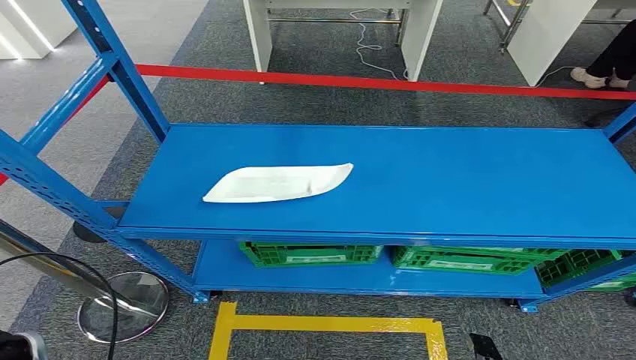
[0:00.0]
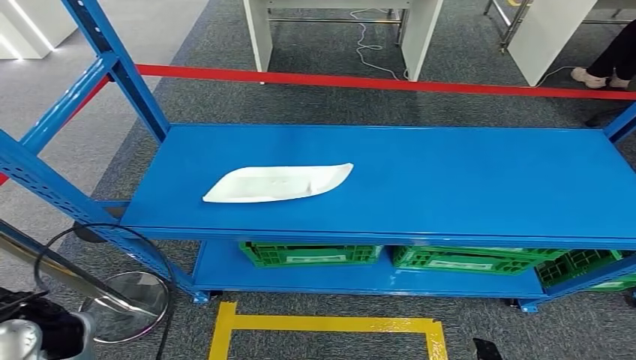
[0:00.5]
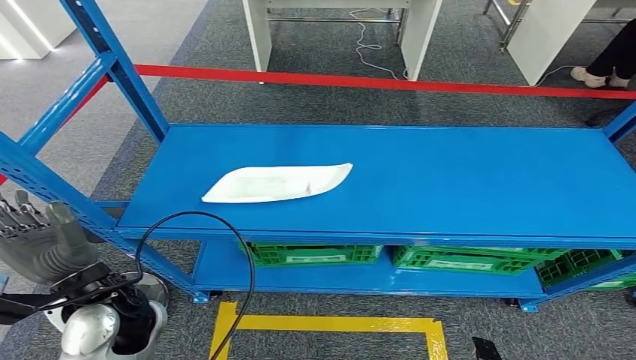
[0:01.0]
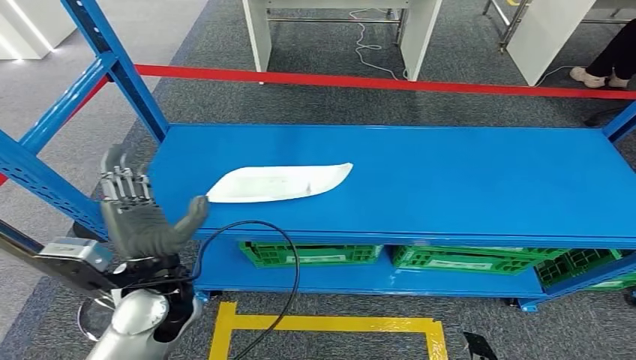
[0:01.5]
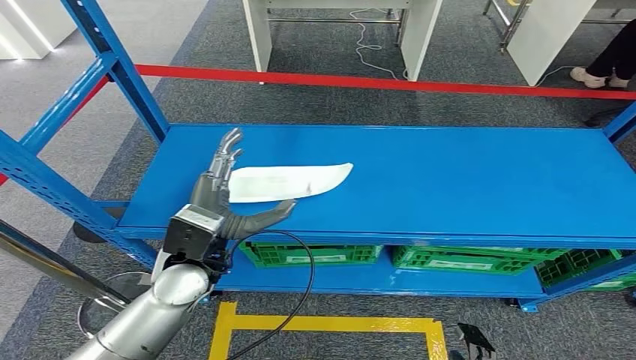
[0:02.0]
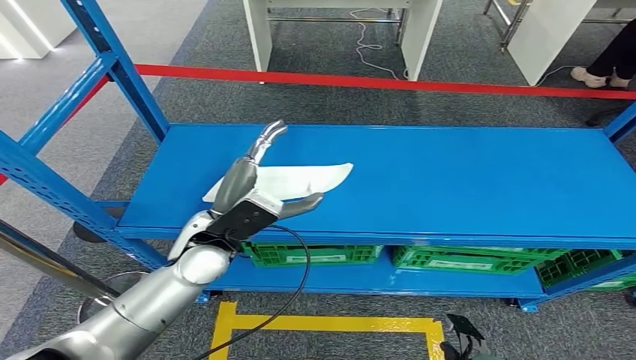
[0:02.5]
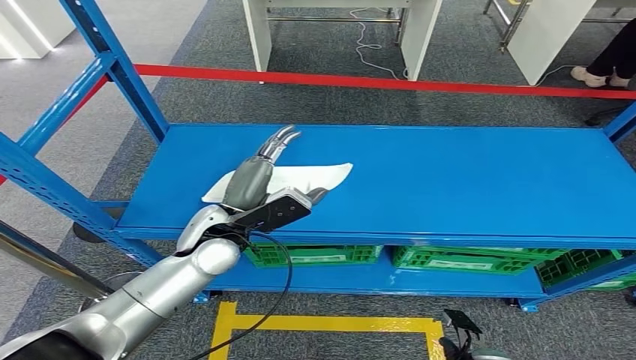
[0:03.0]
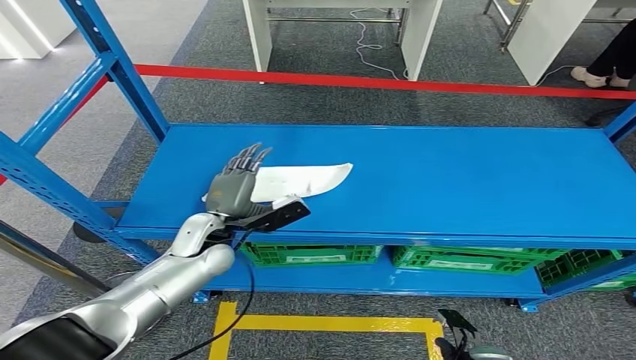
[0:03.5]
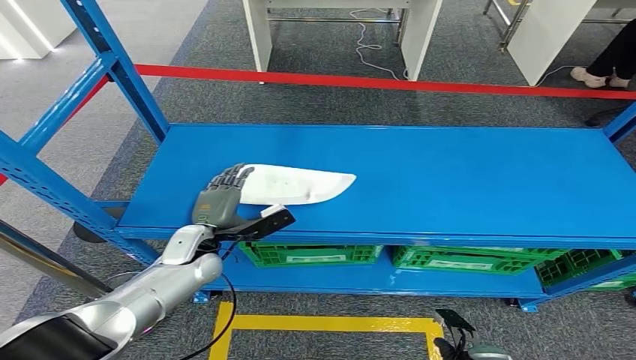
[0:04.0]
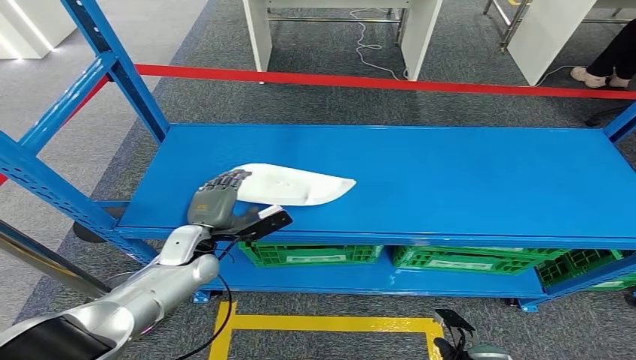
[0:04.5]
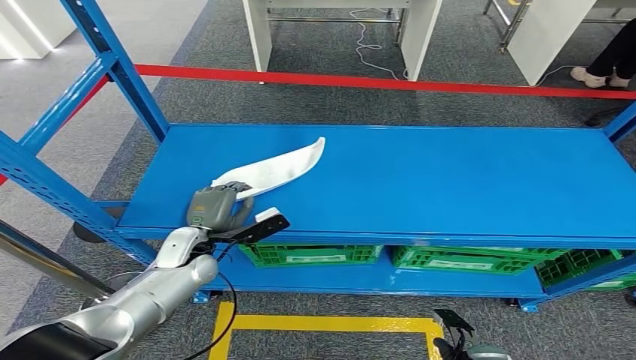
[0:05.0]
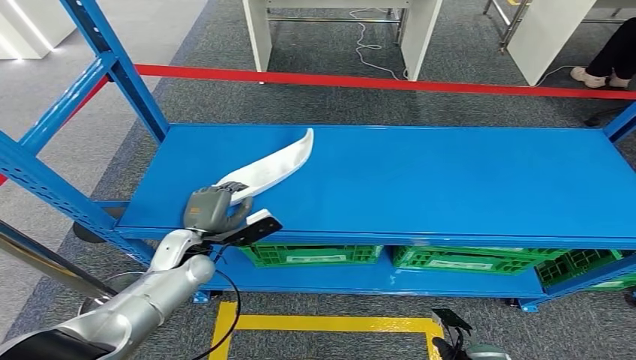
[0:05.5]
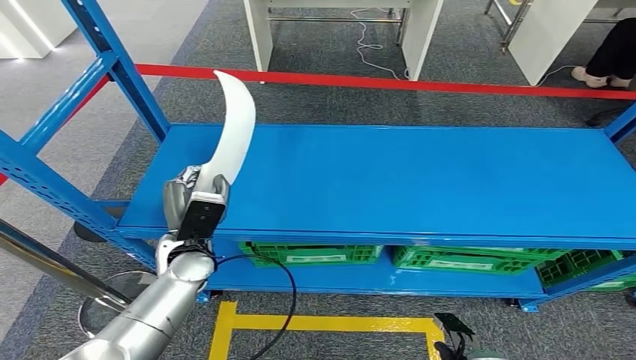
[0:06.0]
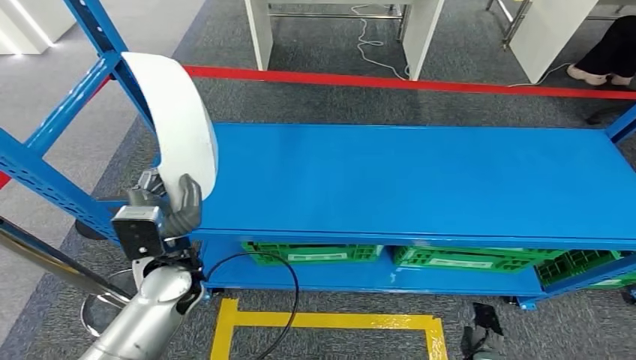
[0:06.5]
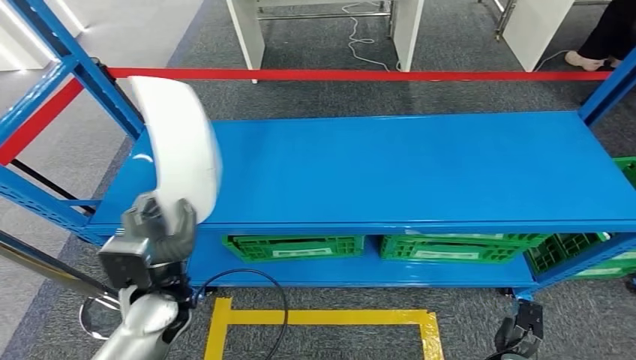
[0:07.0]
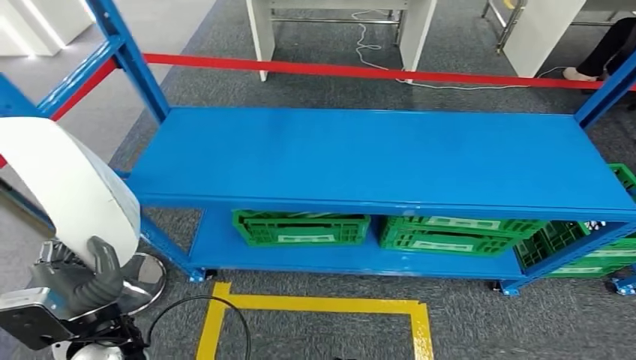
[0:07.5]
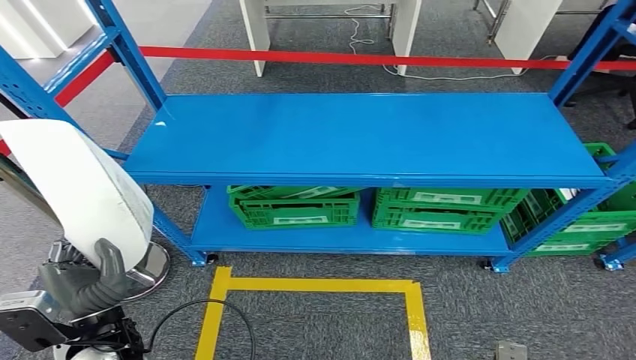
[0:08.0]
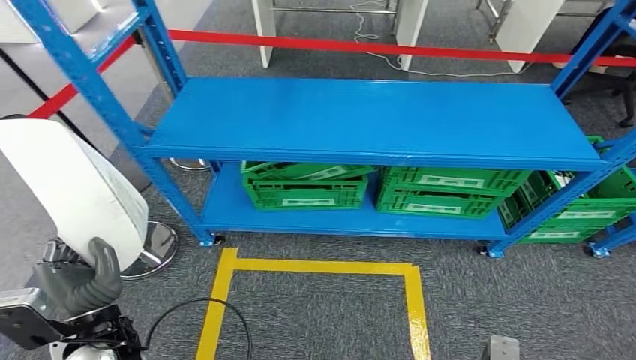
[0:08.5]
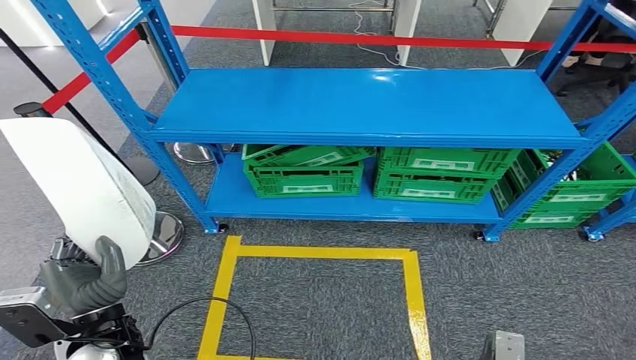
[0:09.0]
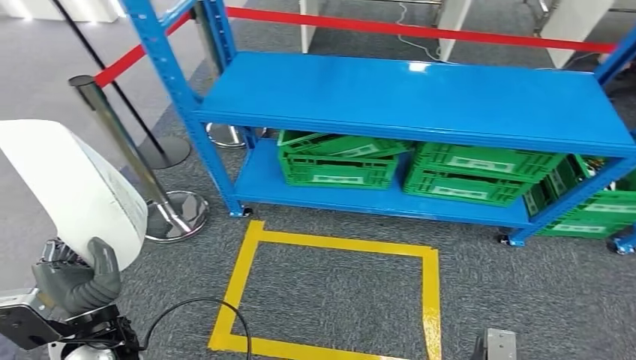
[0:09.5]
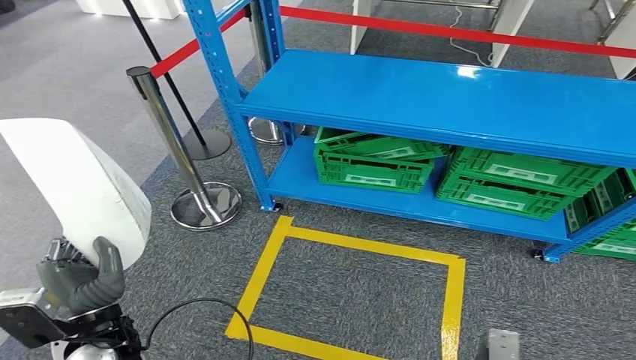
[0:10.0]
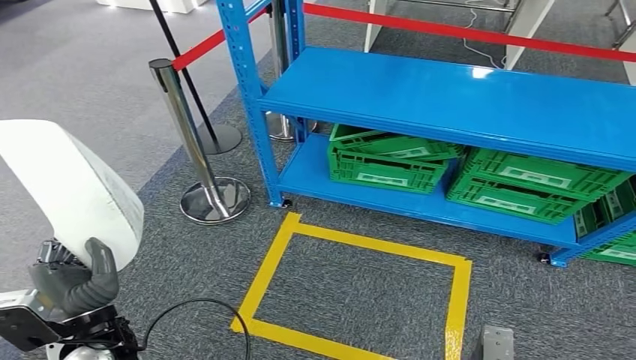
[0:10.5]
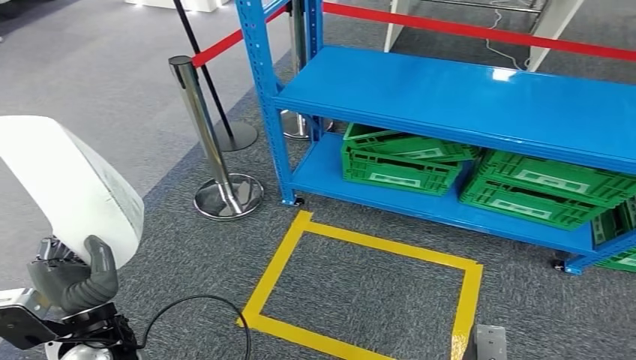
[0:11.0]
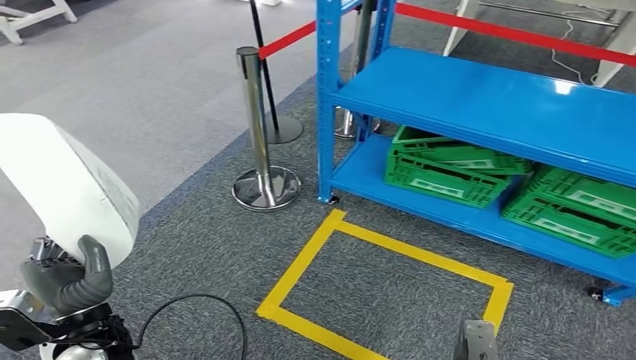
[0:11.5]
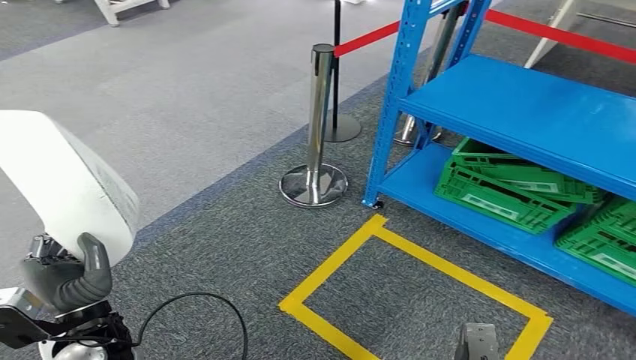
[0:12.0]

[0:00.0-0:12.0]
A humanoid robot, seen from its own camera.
Step, 0:00.0 to 0:08.0: Pick up the small component from the shelf.
0:02.0 to 0:04.0: The left hand goes some 15 cm downward and forward.

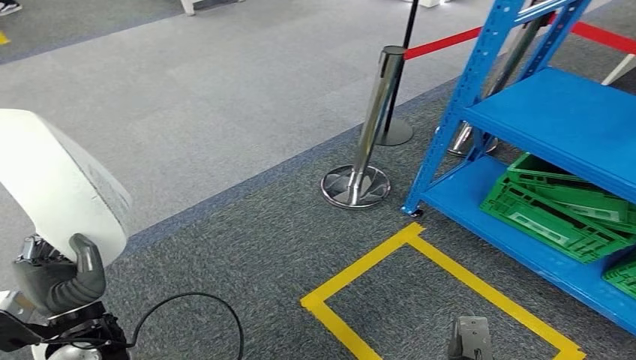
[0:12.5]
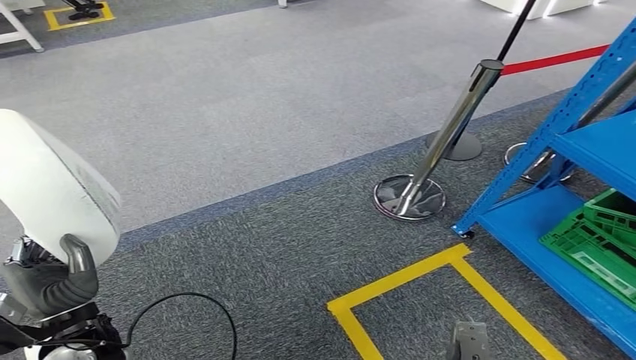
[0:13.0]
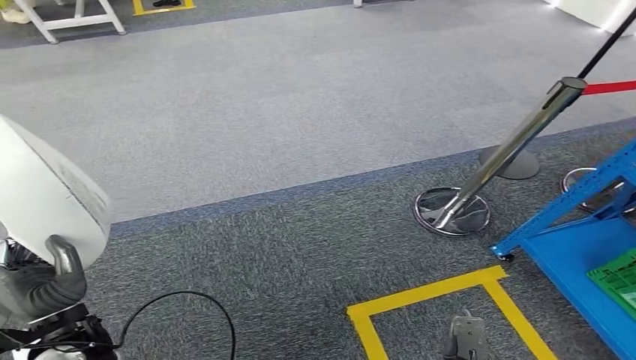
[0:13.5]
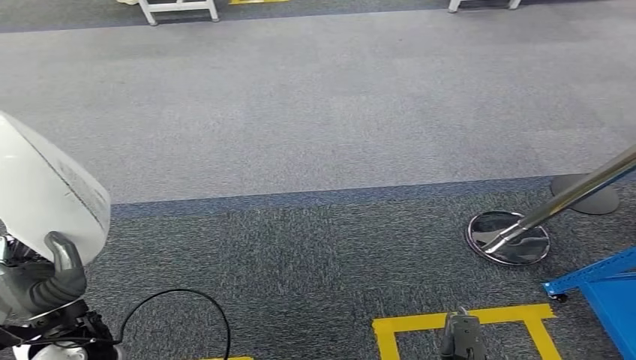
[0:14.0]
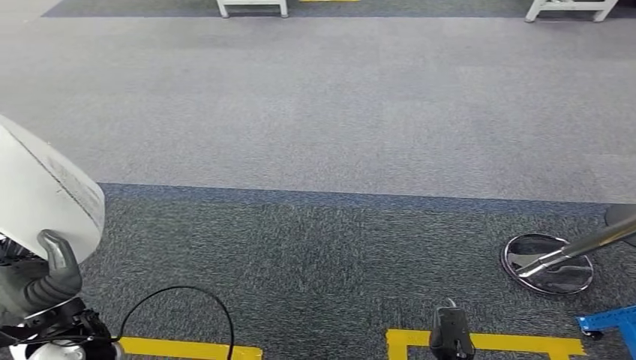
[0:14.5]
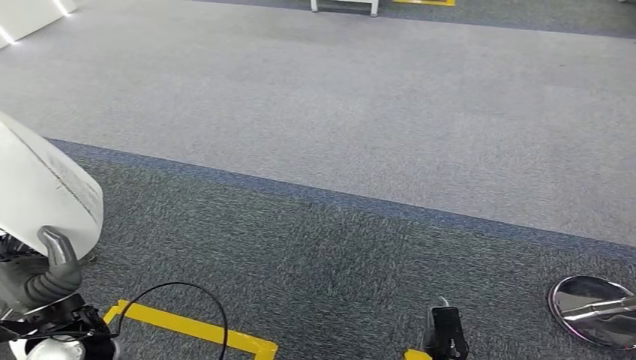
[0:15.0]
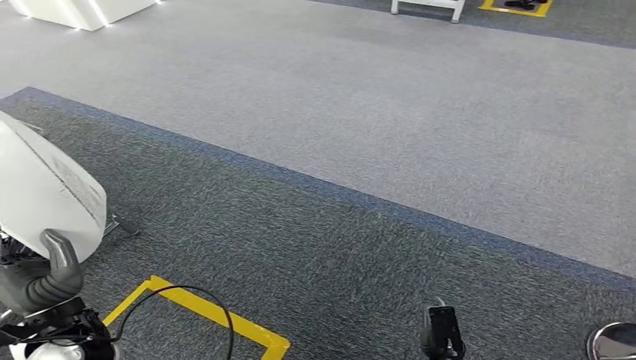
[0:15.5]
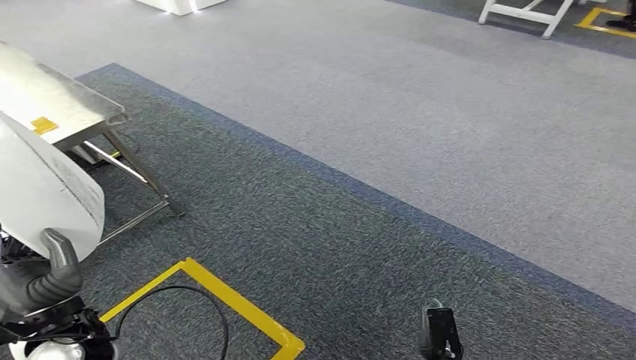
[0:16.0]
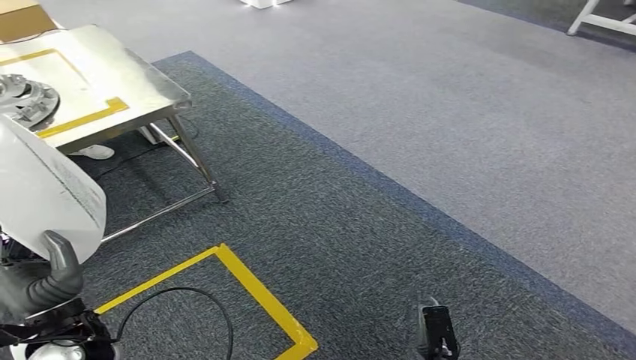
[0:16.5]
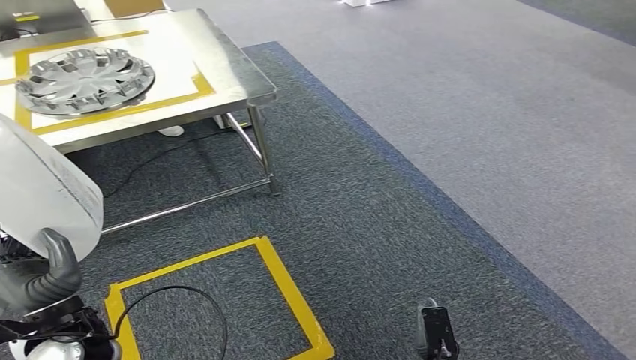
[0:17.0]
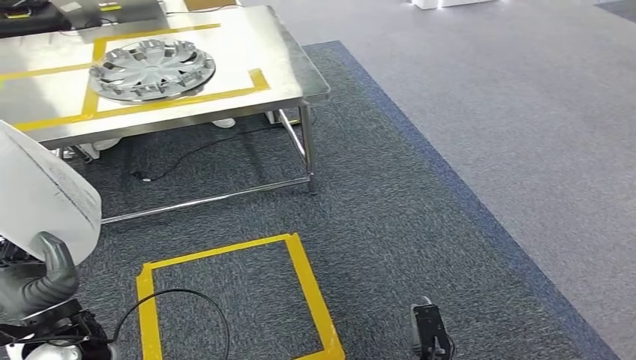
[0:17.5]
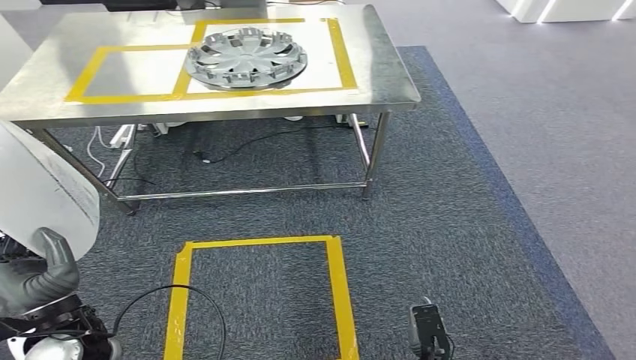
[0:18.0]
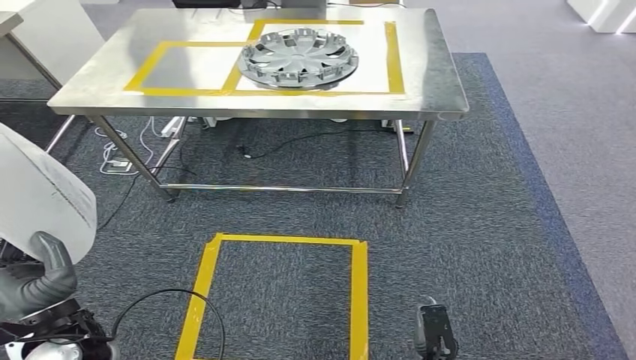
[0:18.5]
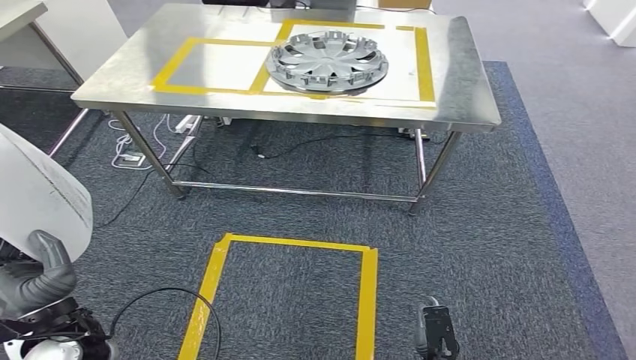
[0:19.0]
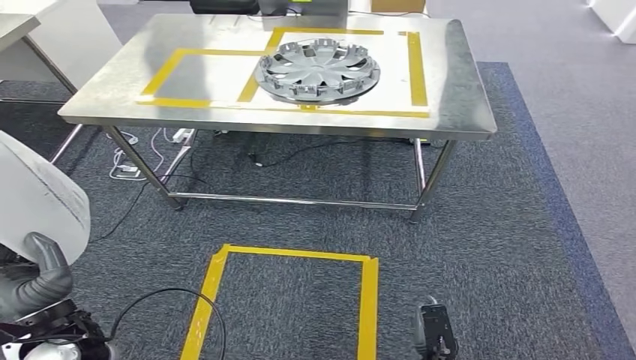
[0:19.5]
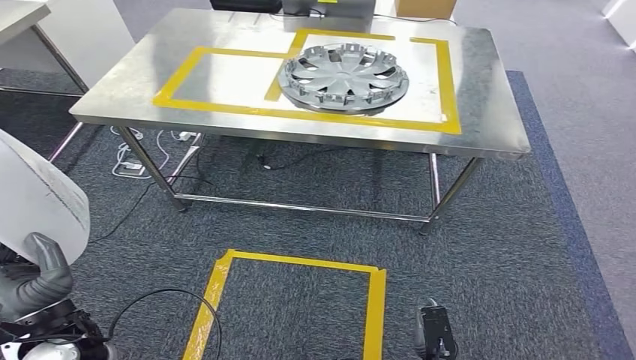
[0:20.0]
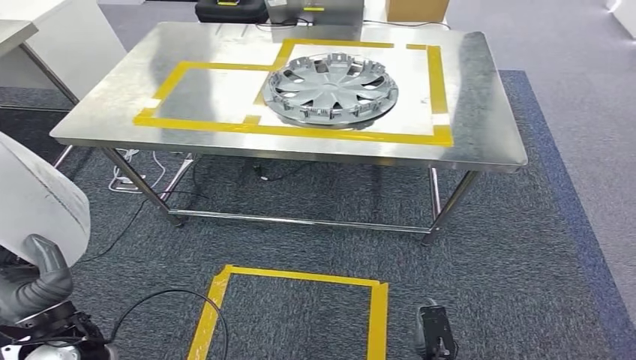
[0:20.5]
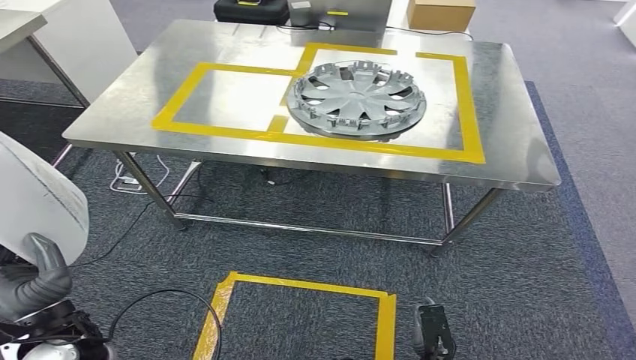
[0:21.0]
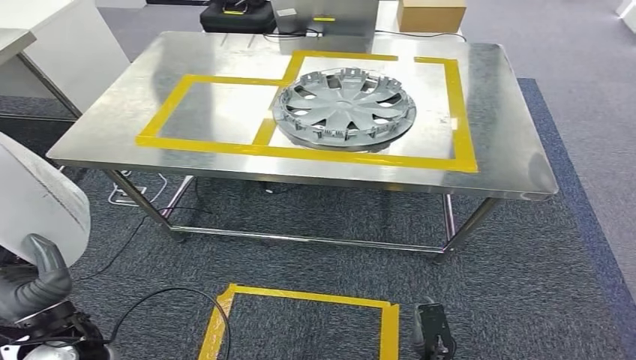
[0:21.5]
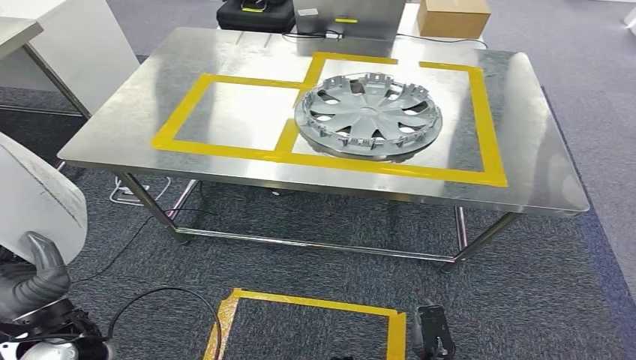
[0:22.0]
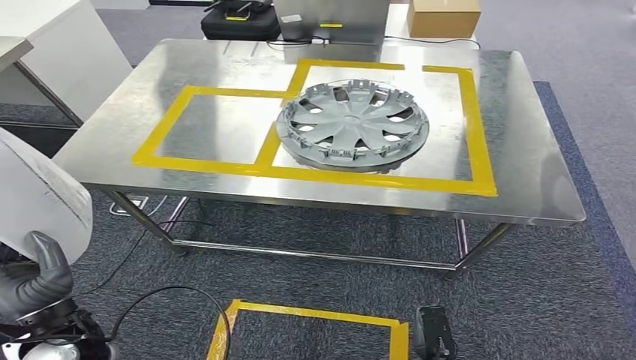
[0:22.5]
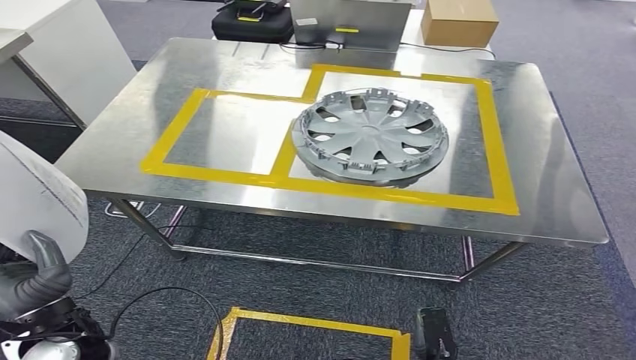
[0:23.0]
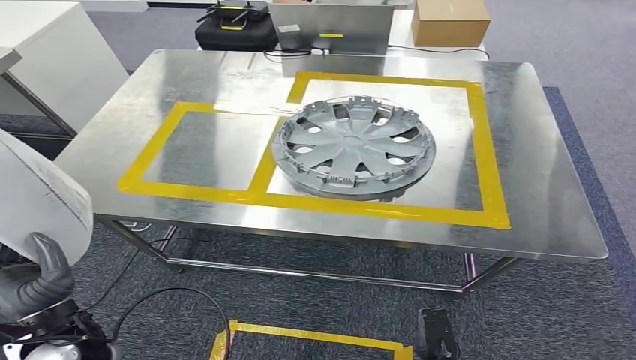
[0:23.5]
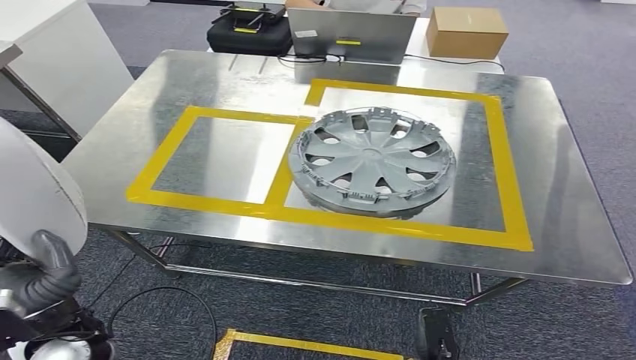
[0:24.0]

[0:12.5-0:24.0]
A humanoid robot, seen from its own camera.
Step, 0:12.5 to 0:22.0: Move the small component to the workbench.
